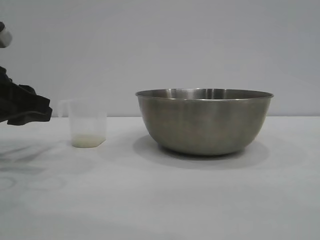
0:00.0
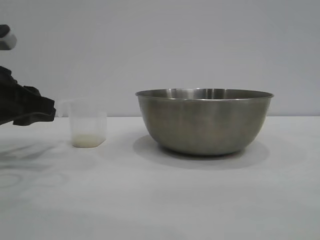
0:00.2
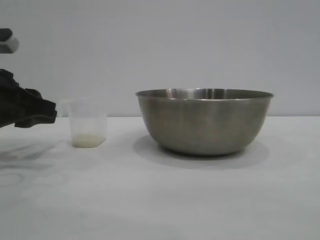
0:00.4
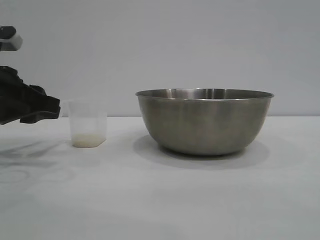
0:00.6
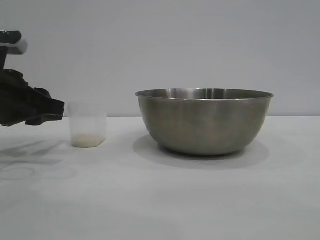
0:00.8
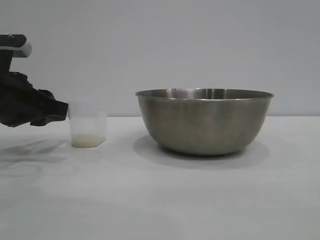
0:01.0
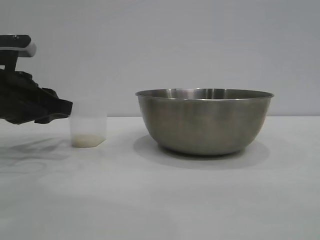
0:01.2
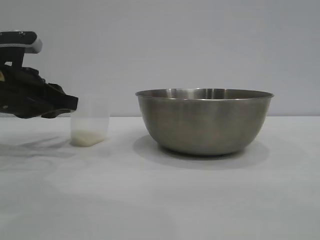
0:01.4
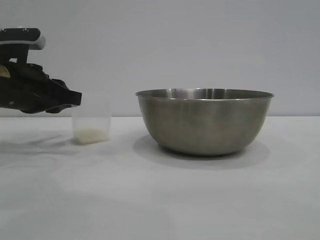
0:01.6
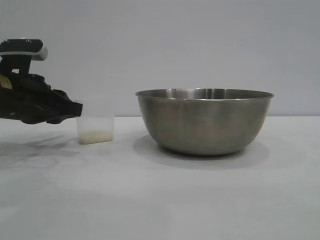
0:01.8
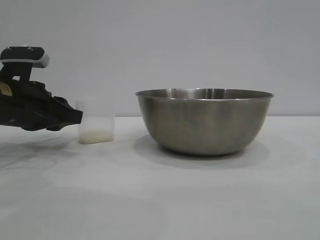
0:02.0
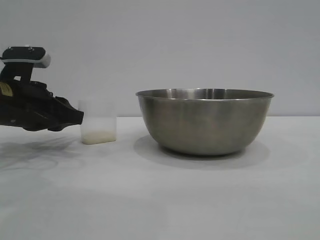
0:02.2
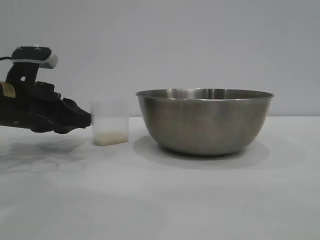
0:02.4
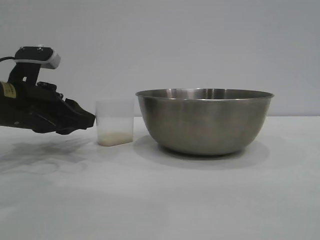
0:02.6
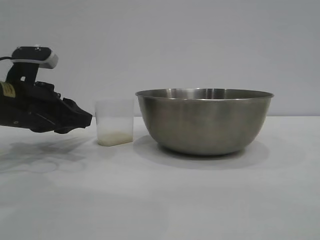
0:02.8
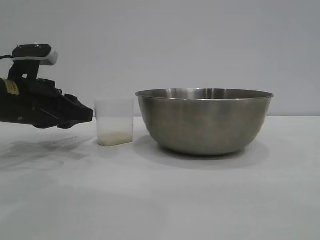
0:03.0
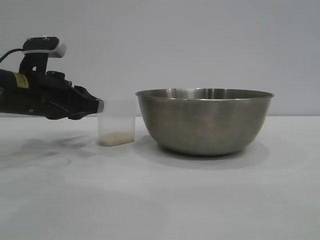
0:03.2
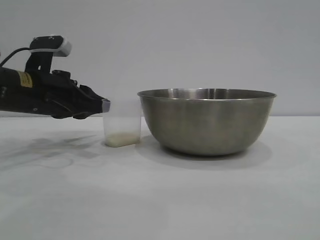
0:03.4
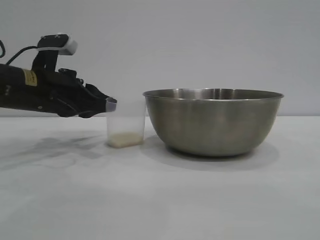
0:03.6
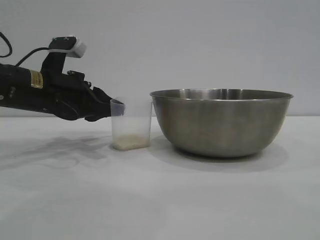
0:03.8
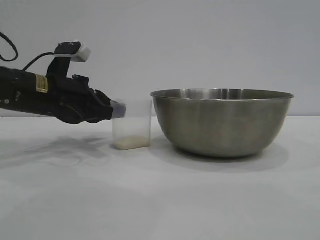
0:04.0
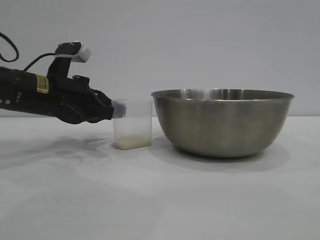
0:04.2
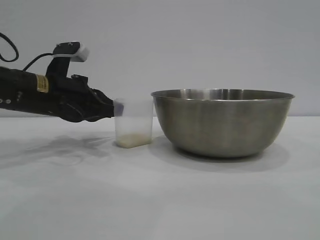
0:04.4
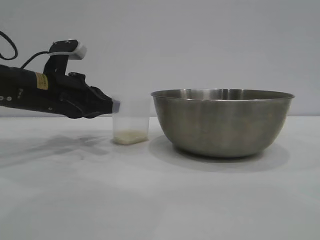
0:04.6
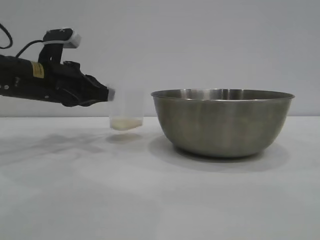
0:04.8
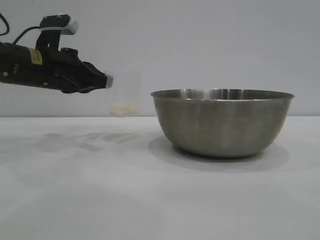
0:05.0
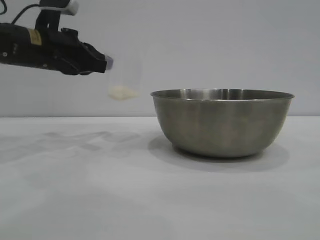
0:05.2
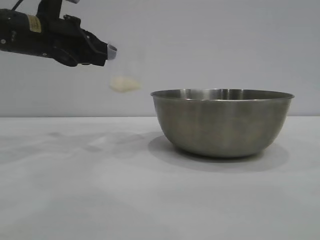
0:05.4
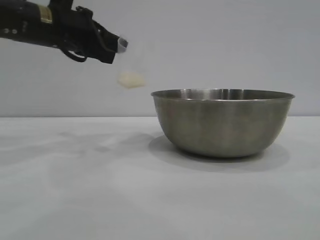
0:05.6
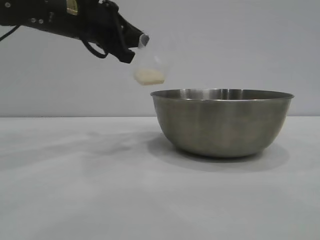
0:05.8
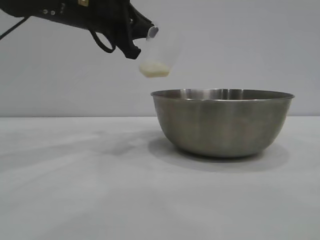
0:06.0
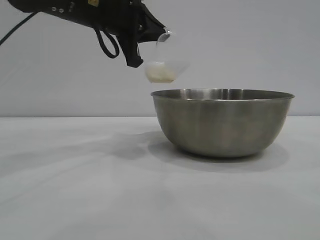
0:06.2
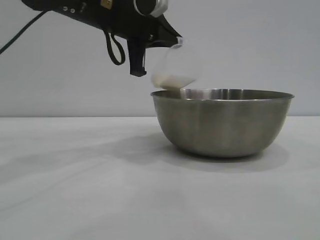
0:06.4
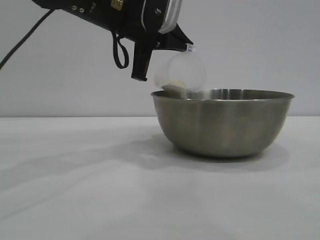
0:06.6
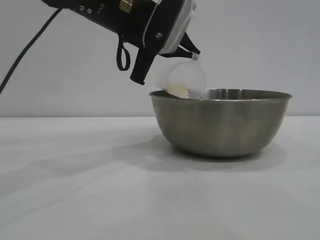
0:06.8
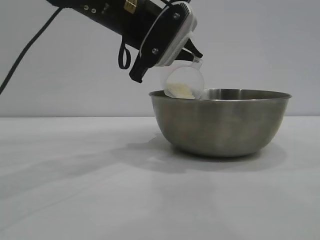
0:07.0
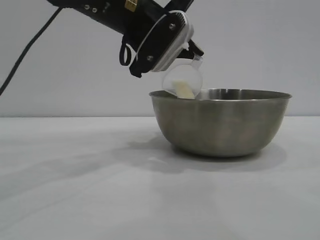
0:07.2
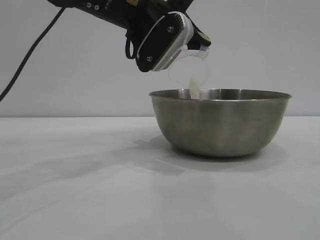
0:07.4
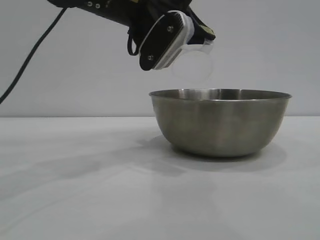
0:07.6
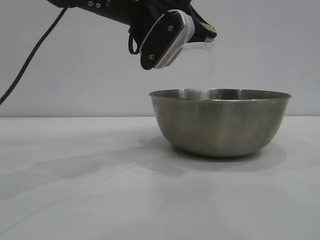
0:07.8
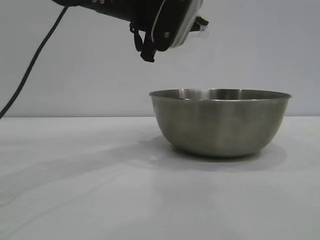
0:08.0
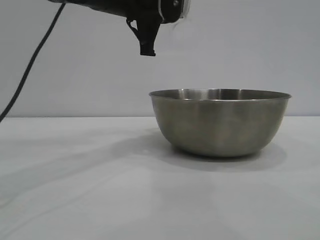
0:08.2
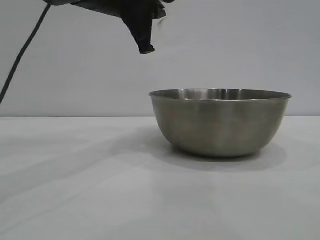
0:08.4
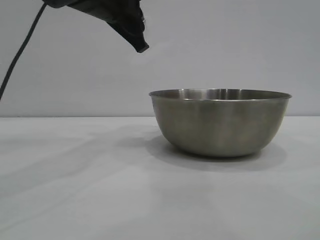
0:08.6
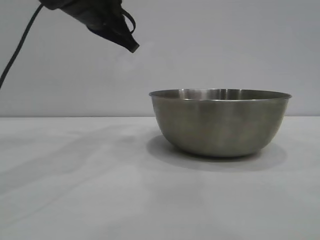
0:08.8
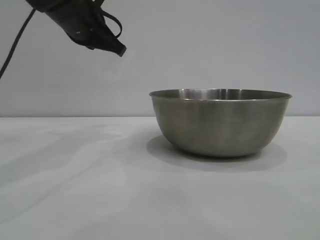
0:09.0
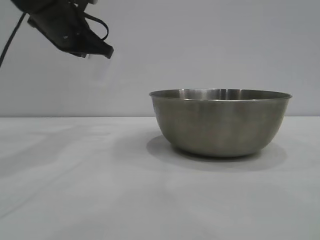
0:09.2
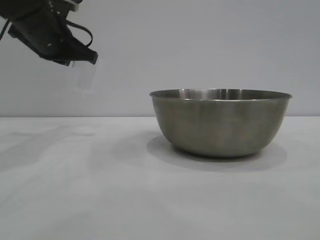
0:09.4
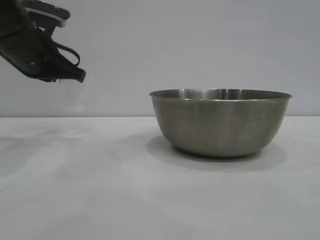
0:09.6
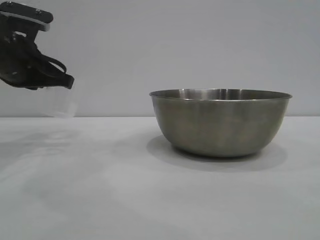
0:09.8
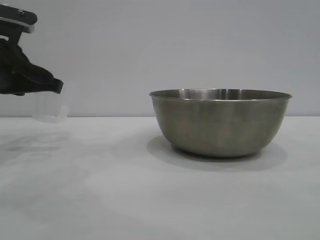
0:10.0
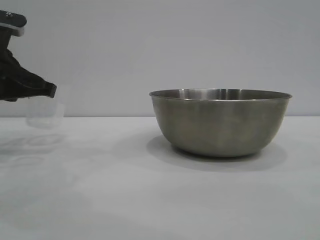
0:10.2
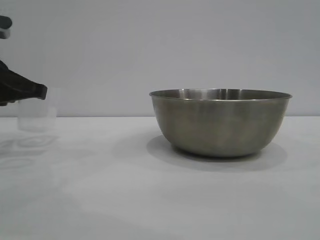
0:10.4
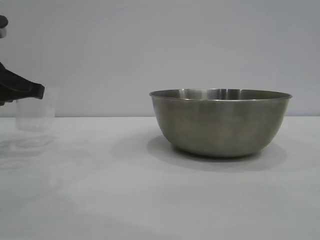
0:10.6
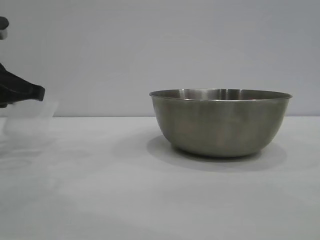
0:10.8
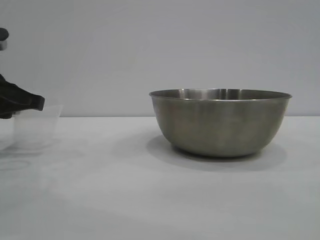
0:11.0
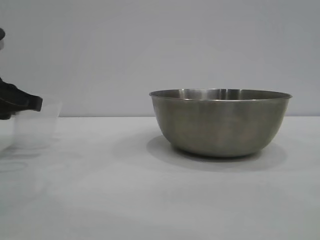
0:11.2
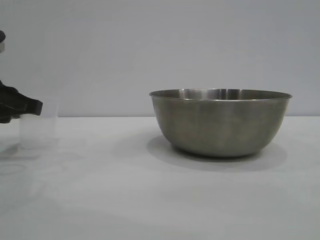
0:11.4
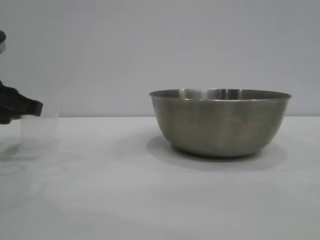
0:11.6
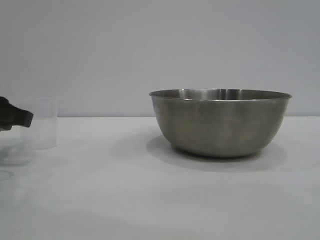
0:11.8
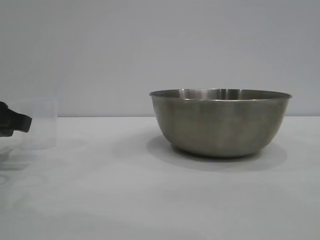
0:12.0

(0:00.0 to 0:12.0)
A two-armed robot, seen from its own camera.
Task of the whole recording: the right gripper grasp the rice container and place it in the center of the table, the left gripper grasp the rice scoop and pour the rice into the rice container.
Step, 0:00.0 - 0:04.8: Pick up the cup with rice in it with the left gripper.
Step, 0:05.0 - 0:08.6: Pour the rice from the cup into the bowl with the left gripper.
